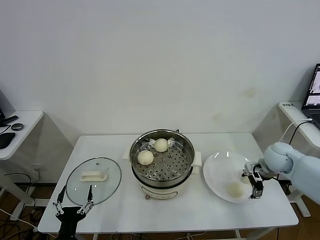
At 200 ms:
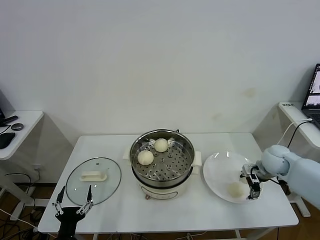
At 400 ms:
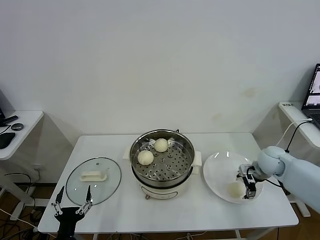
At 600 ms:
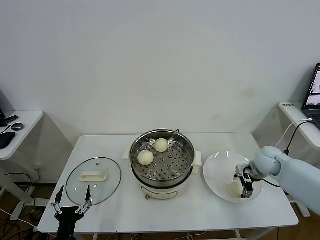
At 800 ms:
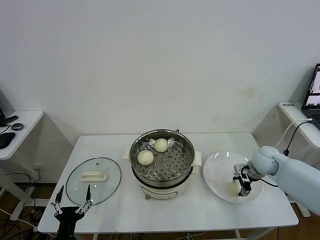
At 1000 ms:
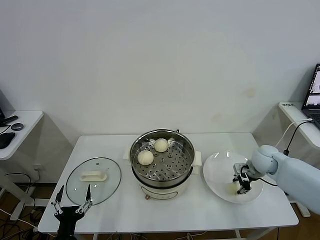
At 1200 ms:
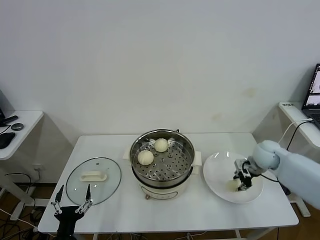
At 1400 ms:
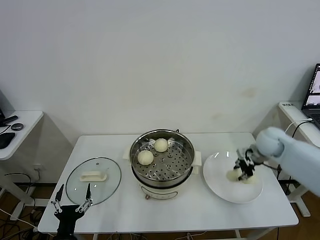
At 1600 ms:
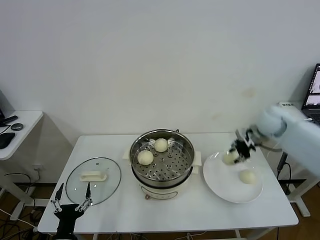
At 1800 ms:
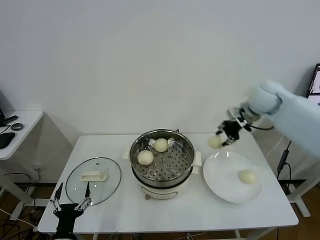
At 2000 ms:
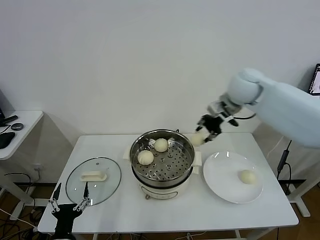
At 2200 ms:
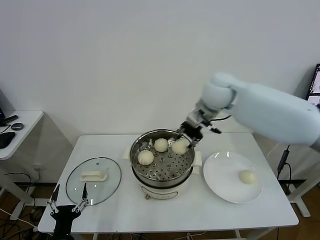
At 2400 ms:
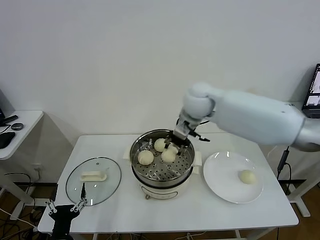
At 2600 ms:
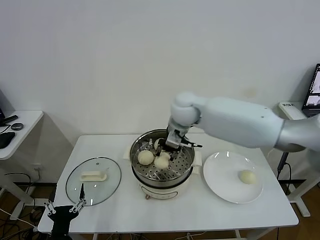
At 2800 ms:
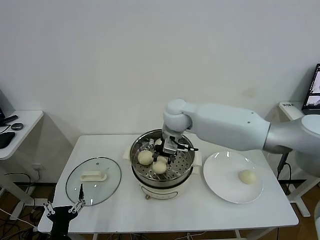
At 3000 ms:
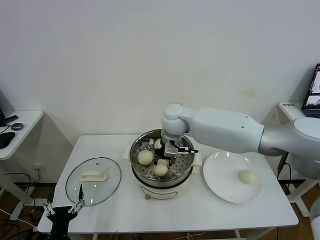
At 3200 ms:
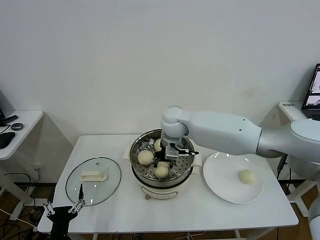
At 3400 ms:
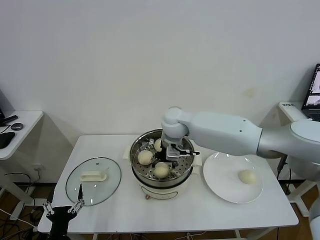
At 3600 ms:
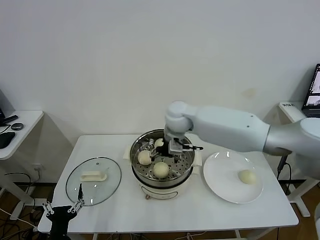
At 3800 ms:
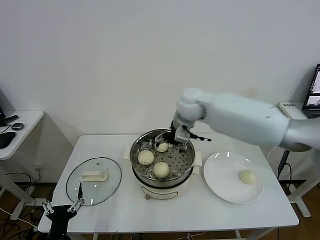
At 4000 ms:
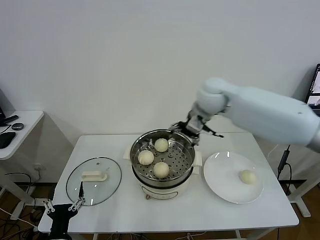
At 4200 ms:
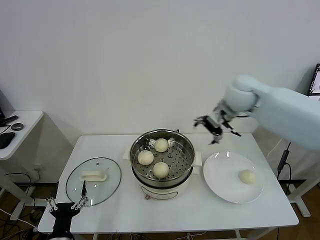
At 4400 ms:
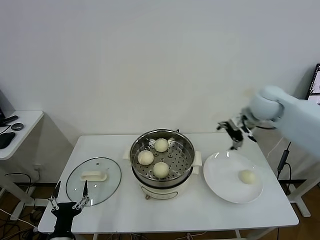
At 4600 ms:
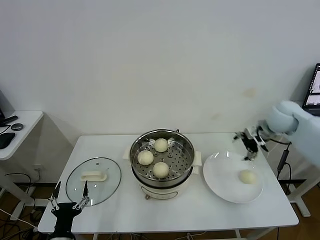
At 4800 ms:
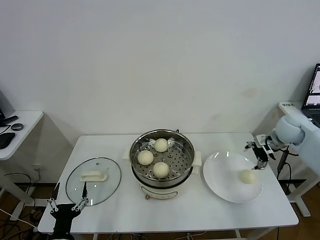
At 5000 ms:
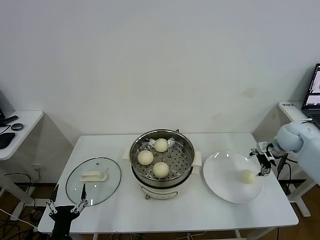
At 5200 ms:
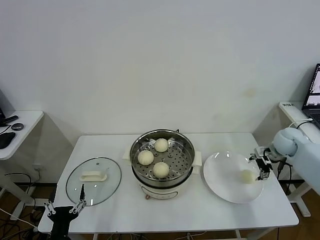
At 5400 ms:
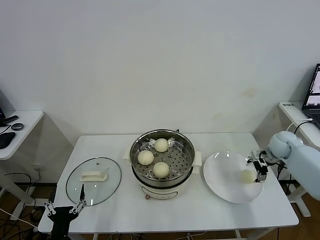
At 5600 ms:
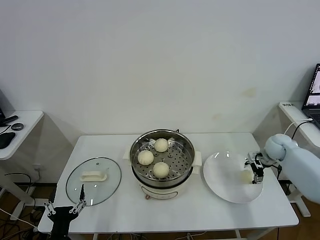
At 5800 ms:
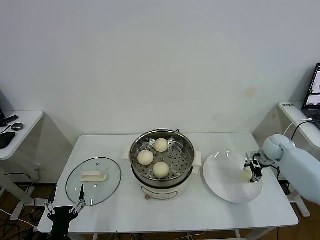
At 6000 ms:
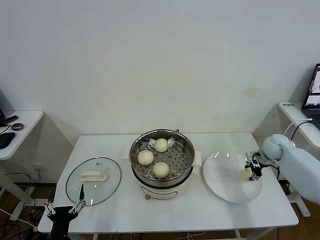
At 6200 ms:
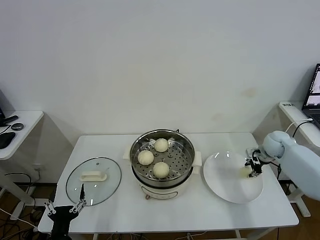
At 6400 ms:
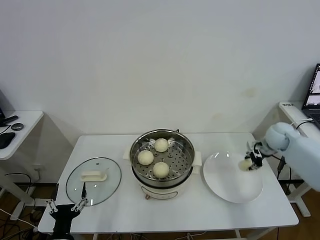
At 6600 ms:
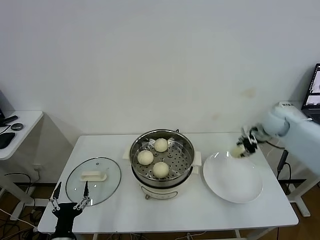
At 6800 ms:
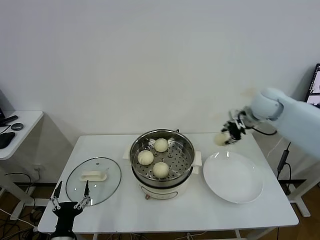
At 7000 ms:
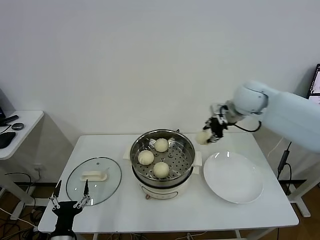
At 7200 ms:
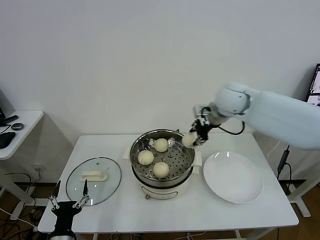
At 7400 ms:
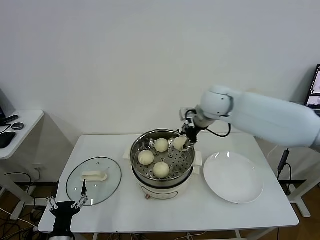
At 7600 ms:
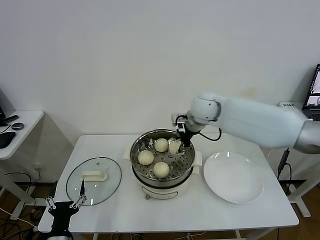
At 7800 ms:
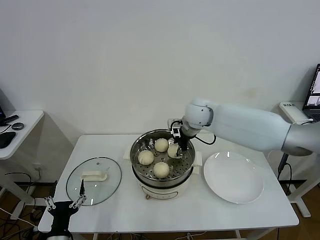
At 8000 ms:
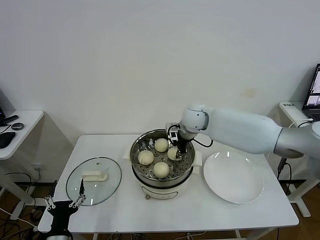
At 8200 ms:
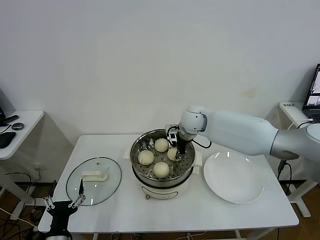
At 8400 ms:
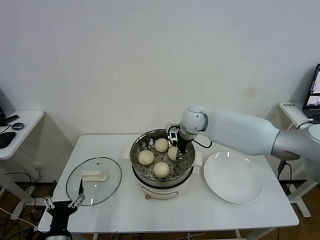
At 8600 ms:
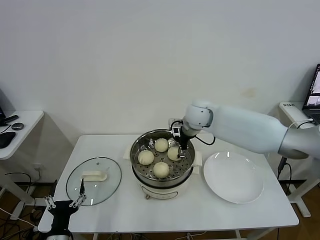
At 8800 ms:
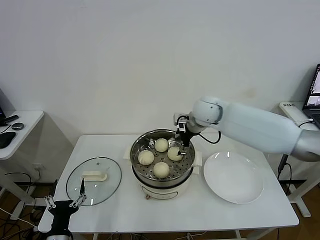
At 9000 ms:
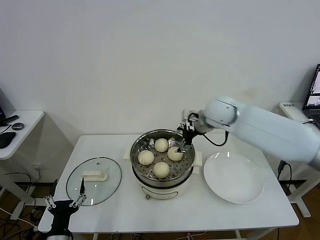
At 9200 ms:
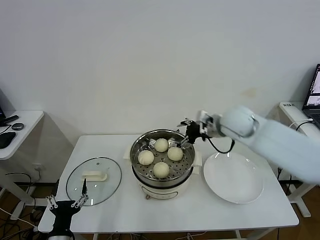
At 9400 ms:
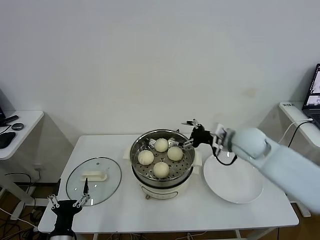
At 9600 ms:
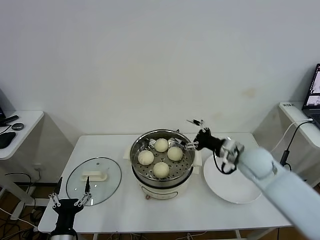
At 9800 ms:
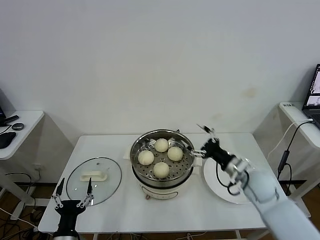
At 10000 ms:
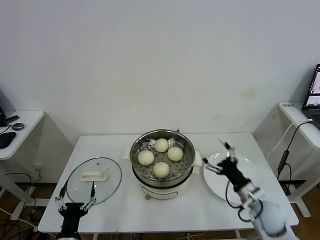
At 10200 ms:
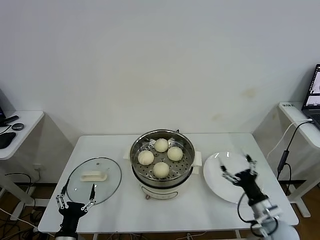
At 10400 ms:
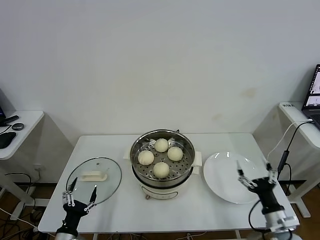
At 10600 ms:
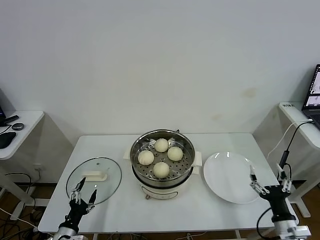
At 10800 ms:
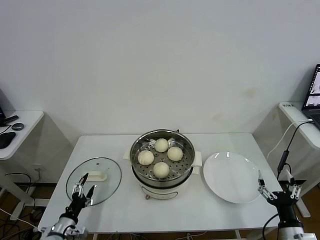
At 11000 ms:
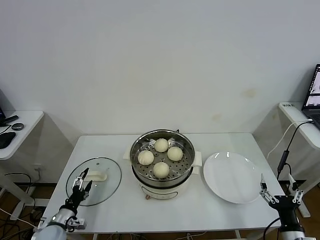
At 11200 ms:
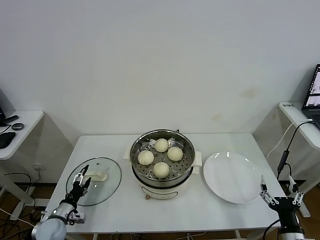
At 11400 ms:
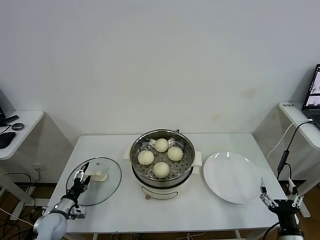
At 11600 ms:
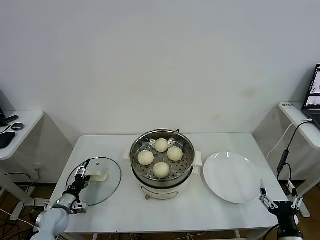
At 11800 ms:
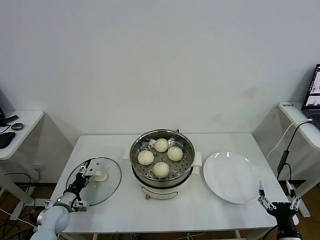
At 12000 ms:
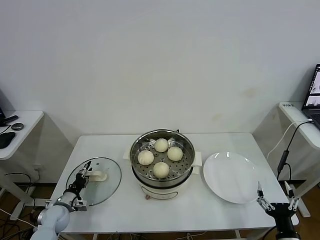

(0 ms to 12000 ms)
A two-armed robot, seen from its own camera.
Task of the whole recording: take steamed baozi put them in steamer.
Step, 1200 ms - 3400 ms: Place the baozi on the steamer with right gripper.
Step, 3600 ms - 5800 ms: Grasp the baozi in the plate with right gripper.
Step, 6000 ms - 8600 ms: Place the baozi on the steamer with right gripper.
0 ms - 1600 ms: The right gripper is displaced upward and forward by about 15 cm, and closes.
1600 ms - 3000 ms: The right gripper goes some 30 cm to the left.
3000 ms - 4400 ms: The right gripper travels to the right by some 25 cm, and opens up.
4400 ms - 6000 ms: The right gripper heads downward and to the right, covering roughly 25 cm, and closes its fingers.
6000 ms - 7600 ms: The right gripper heads to the left and upward, covering about 35 cm.
7600 ms - 9000 ms: The right gripper opens up.
9000 ms - 10400 ms: The right gripper travels backward, downward and to the right by approximately 40 cm.
10400 ms - 12000 ms: The left gripper goes some 20 cm forward and to the left, and closes its fingers; the right gripper is displaced backward by some 10 cm.

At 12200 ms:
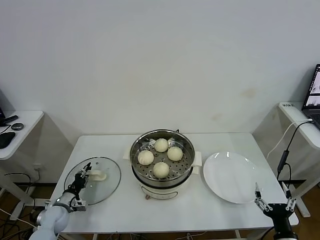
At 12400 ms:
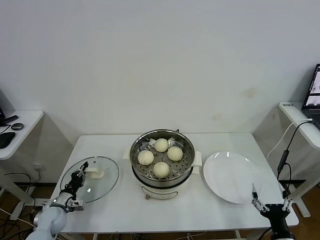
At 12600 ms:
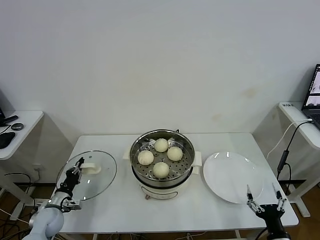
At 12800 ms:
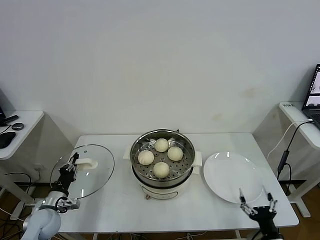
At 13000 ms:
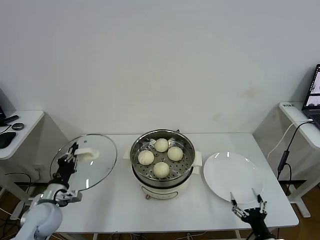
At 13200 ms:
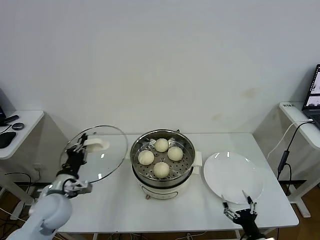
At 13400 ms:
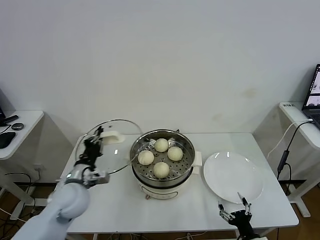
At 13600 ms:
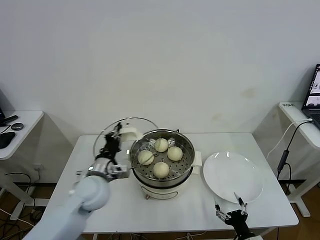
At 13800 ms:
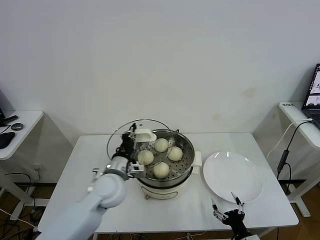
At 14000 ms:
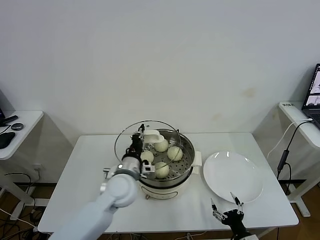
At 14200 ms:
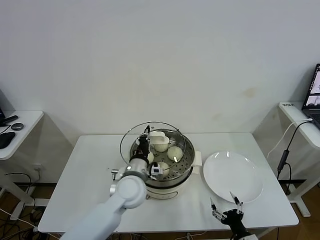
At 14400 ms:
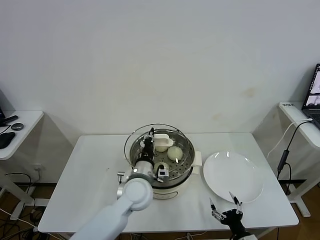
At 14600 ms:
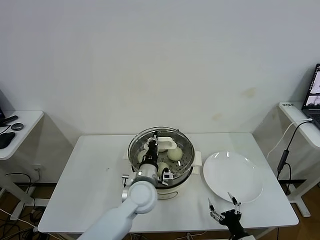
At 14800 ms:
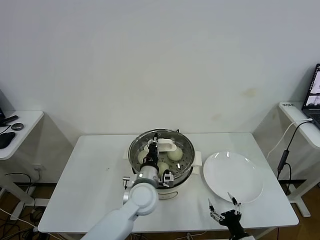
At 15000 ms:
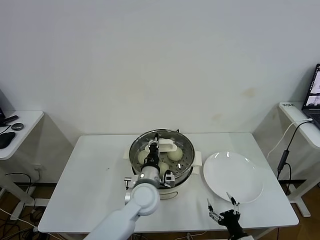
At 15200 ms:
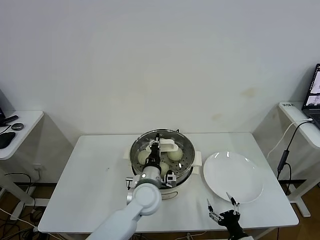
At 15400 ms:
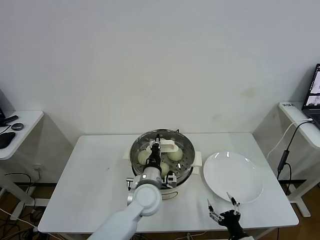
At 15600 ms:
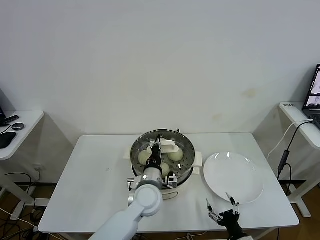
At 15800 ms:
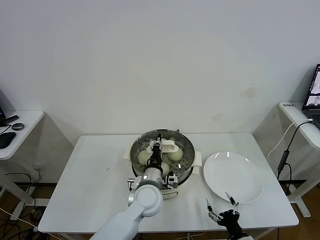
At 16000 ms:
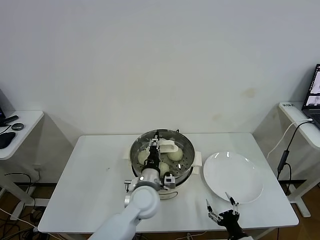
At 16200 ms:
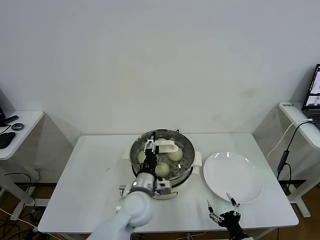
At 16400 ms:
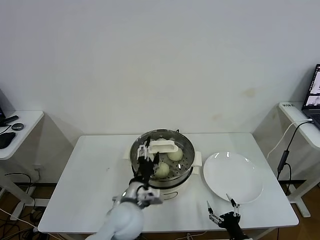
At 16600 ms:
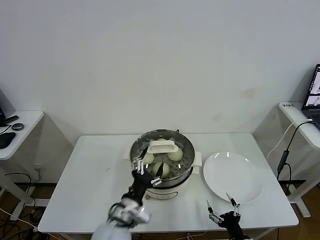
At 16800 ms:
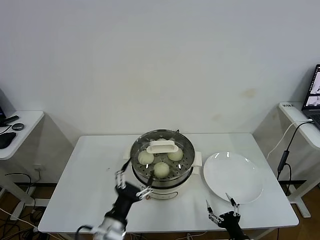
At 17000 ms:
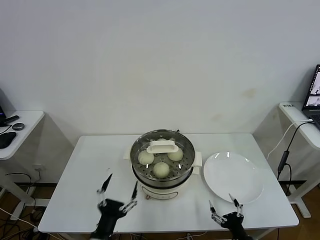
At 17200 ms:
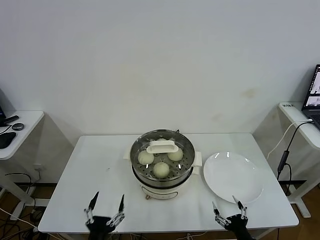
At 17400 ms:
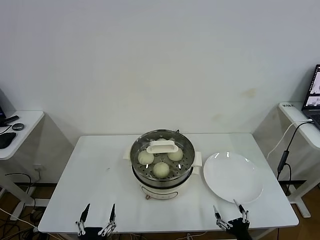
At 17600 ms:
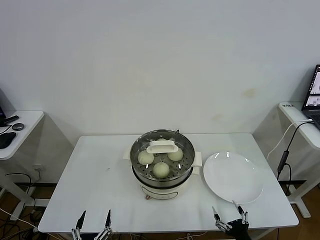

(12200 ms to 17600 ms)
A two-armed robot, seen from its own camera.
Task of the whole recording: take steamed baozi put them in steamer.
Step, 12600 ms - 16200 ms: Place the pot lid on the steamer with left gripper.
12200 ms - 13600 ms: The left gripper travels upward and to the right by roughly 30 cm, and closes its fingers. The right gripper heads to the left and downward, covering roughly 10 cm.
13600 ms - 15000 ms: The left gripper is displaced to the right by about 15 cm.
15000 ms - 16200 ms: The left gripper opens.
16200 ms - 17600 ms: The left gripper goes some 30 cm backward, to the left and downward, and opens up.
